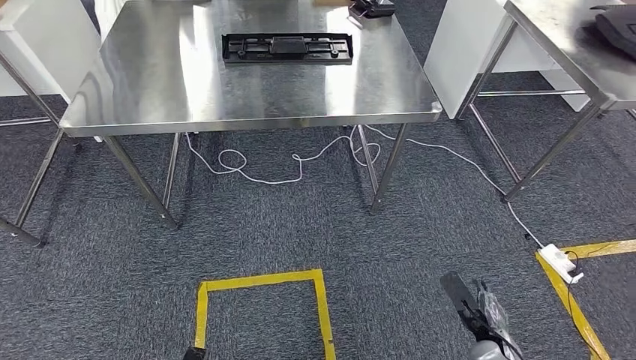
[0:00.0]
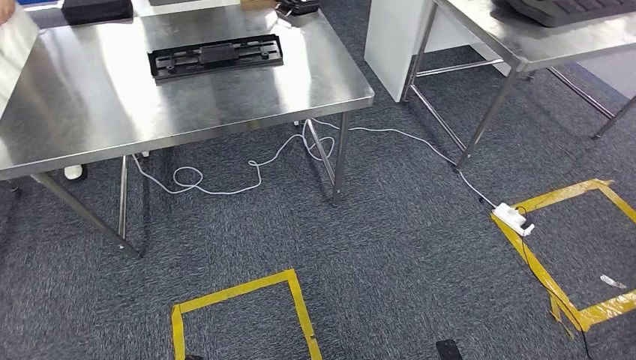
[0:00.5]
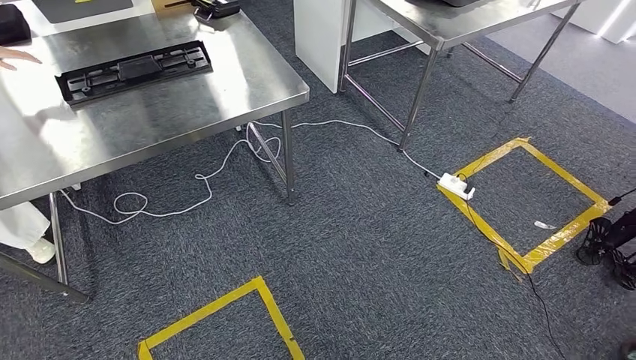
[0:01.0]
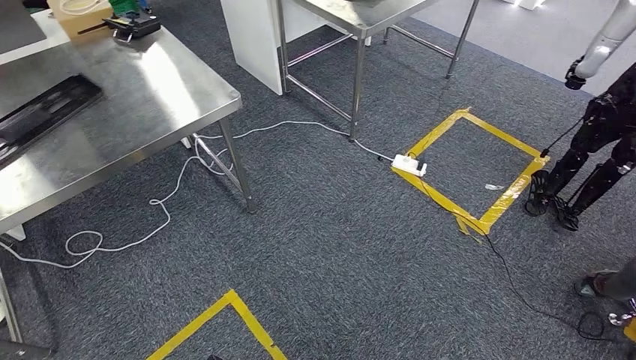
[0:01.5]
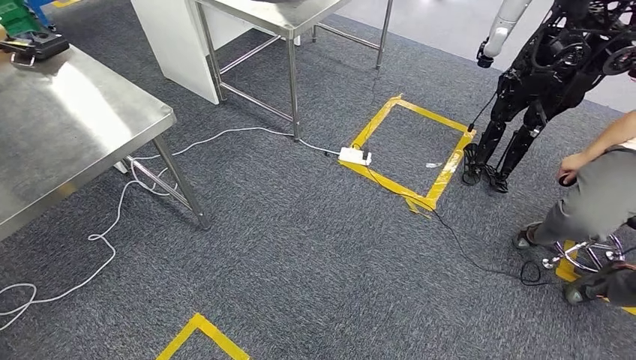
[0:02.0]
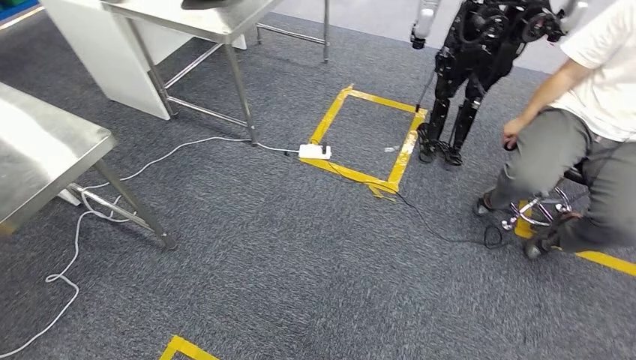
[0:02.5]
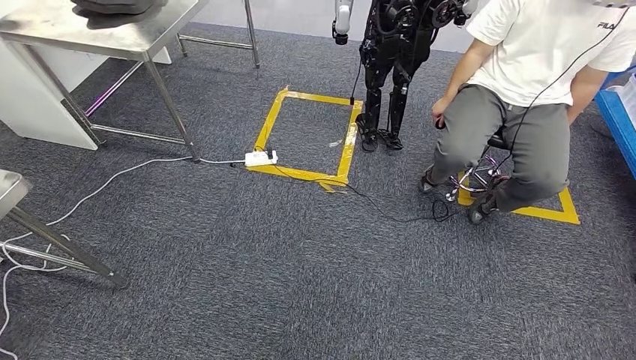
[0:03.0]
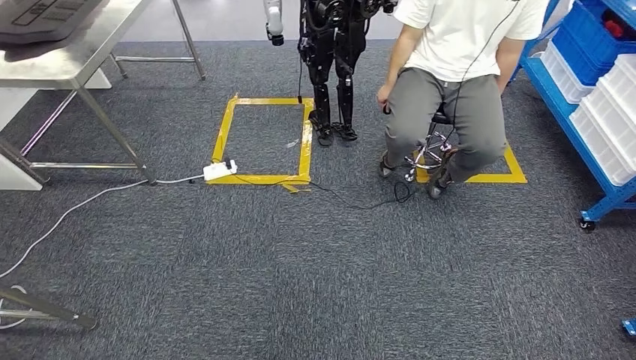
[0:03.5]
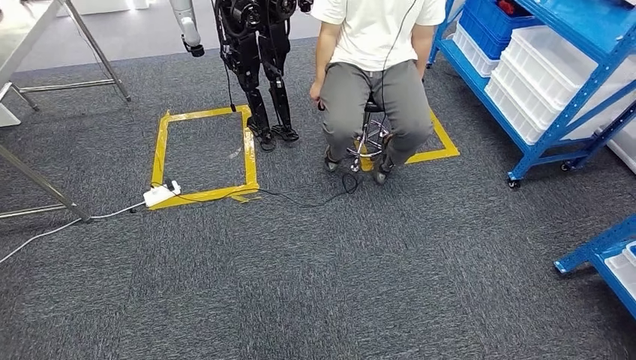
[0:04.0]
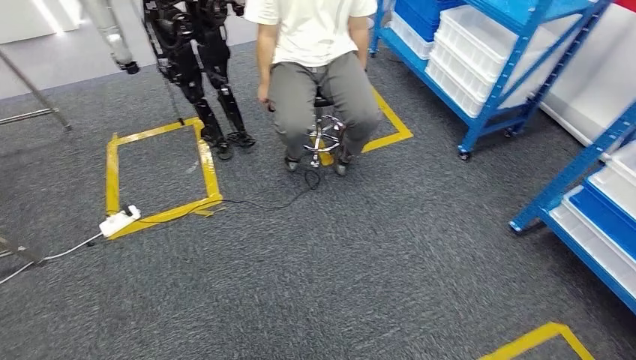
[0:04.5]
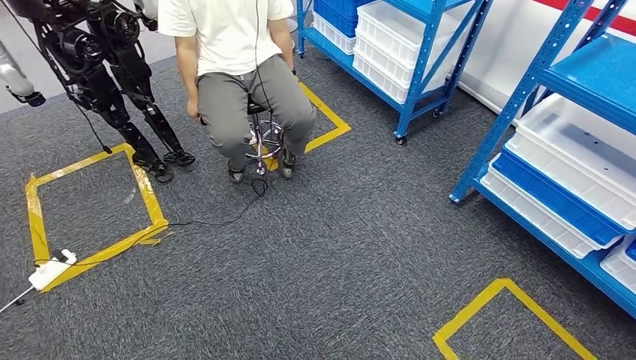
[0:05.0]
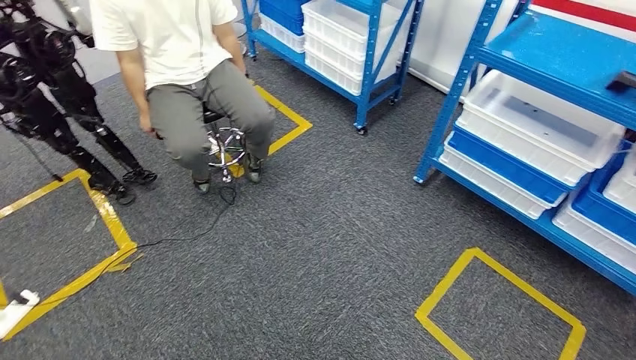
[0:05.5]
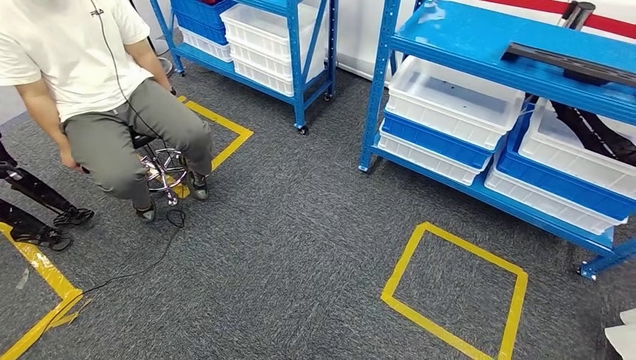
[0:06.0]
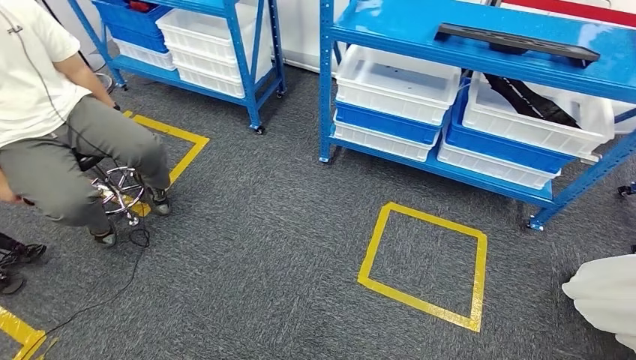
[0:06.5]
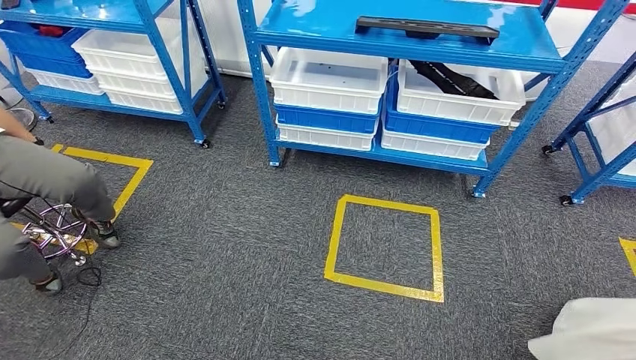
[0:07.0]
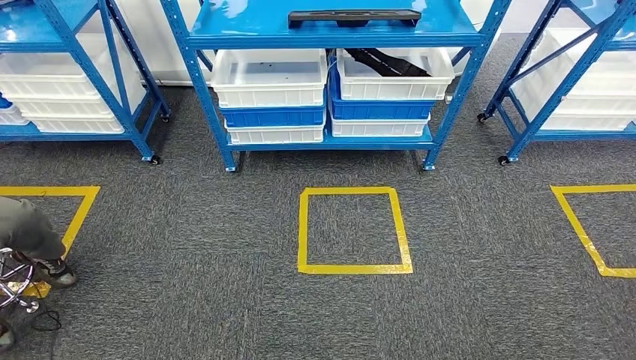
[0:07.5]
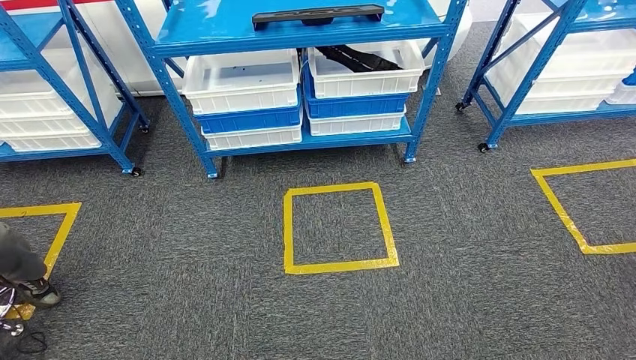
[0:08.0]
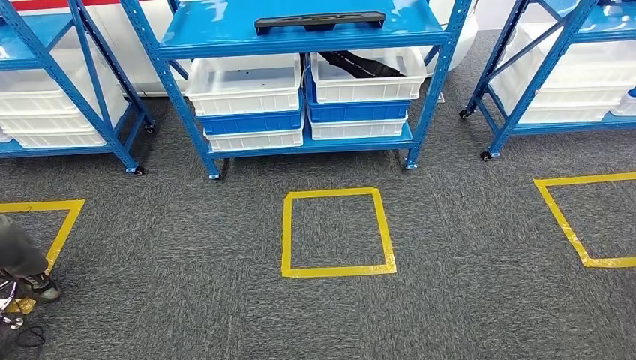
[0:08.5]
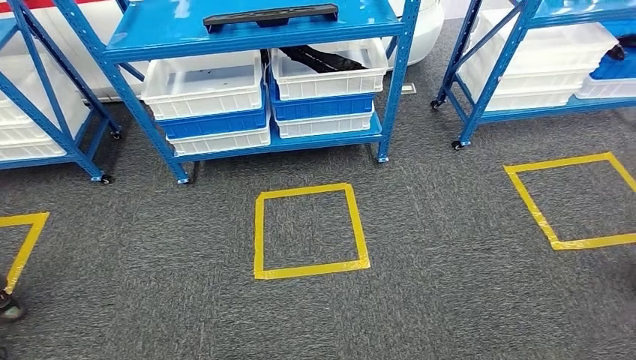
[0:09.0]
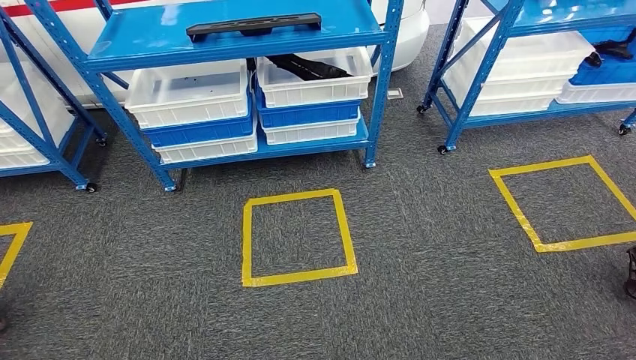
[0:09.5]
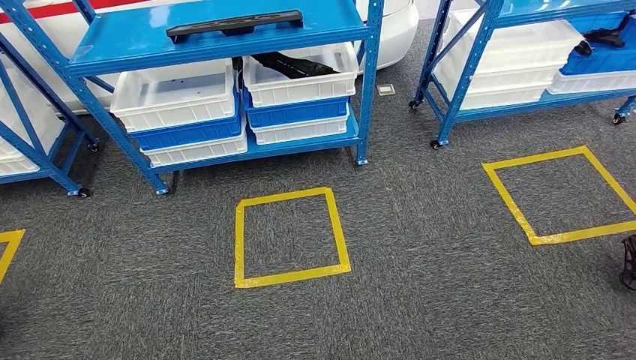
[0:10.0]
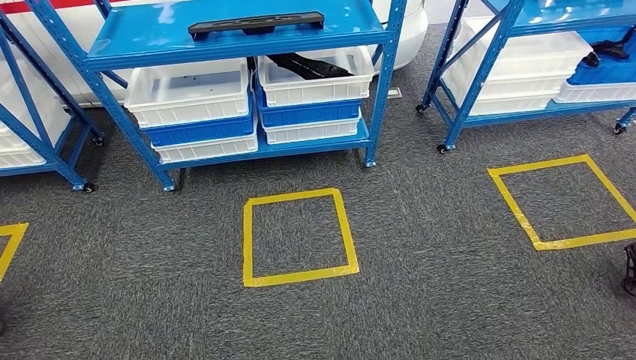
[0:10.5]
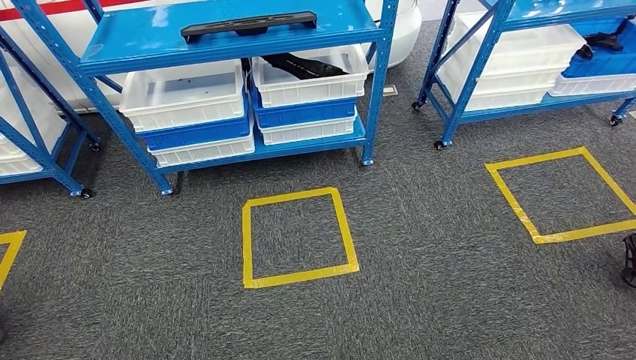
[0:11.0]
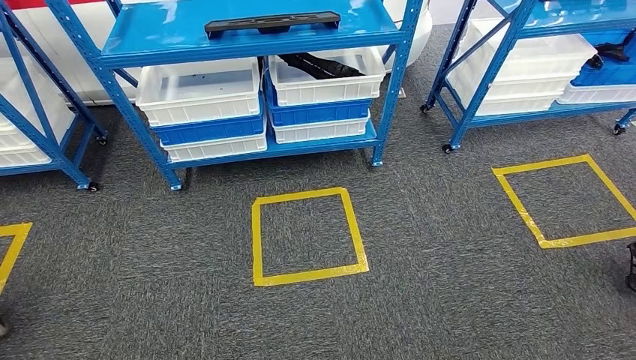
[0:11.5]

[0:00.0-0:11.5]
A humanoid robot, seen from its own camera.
Step, 0:00.0 to 0:11.5: Move to the initial position of the shelf.
0:09.5 to 0:11.5: Neither hand changes place.
